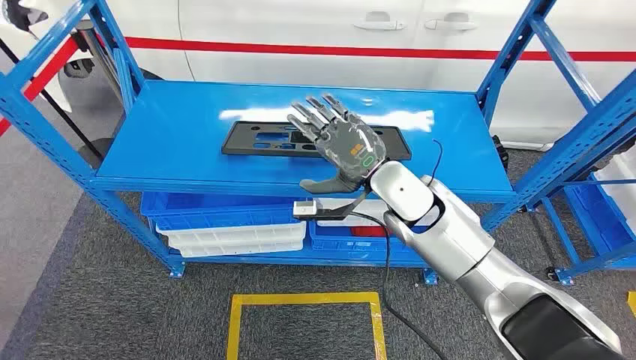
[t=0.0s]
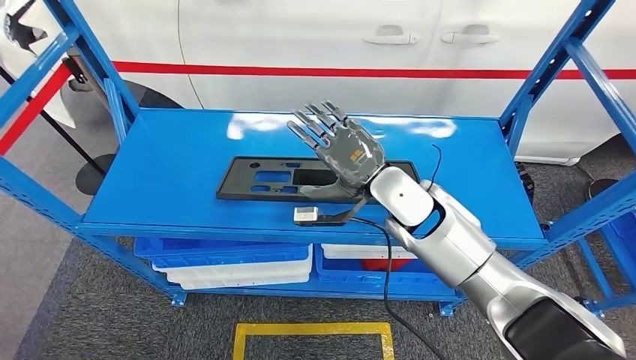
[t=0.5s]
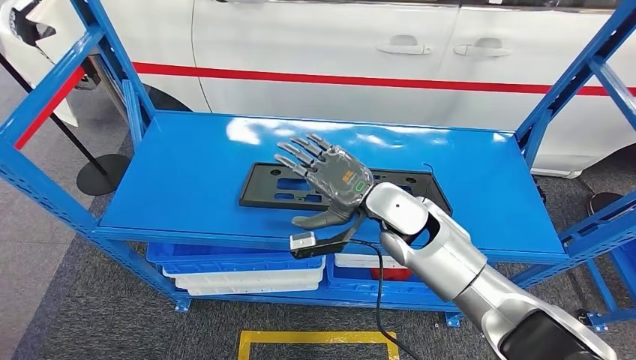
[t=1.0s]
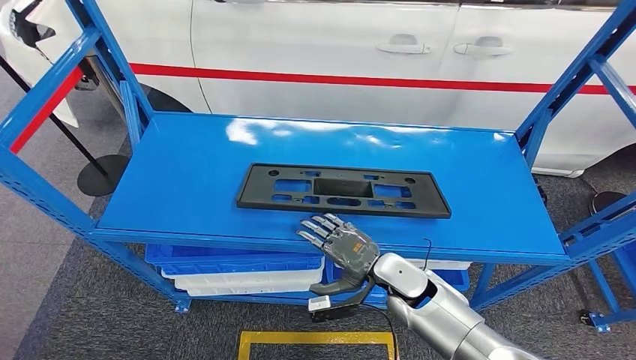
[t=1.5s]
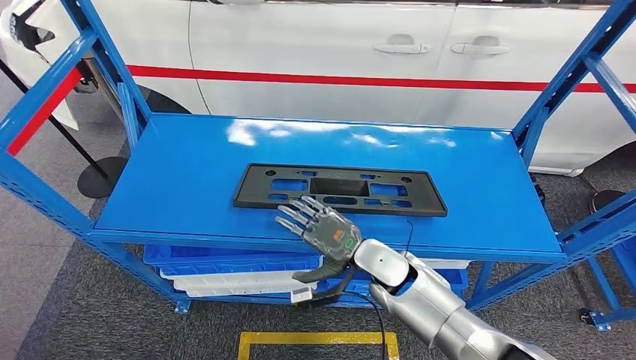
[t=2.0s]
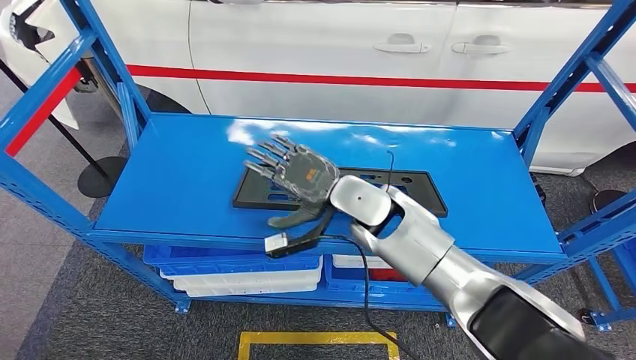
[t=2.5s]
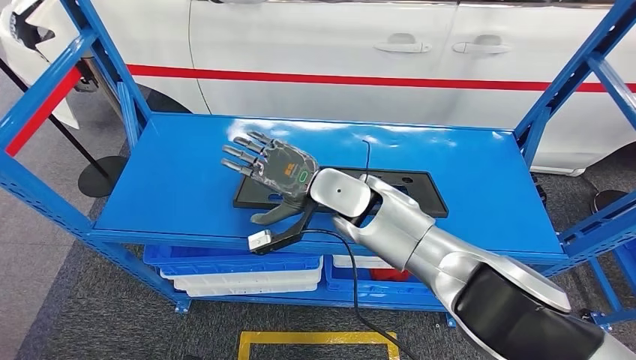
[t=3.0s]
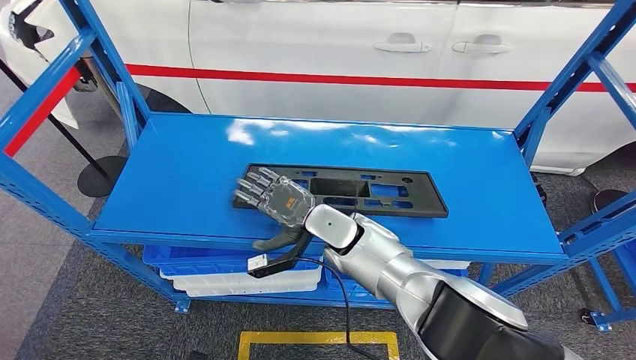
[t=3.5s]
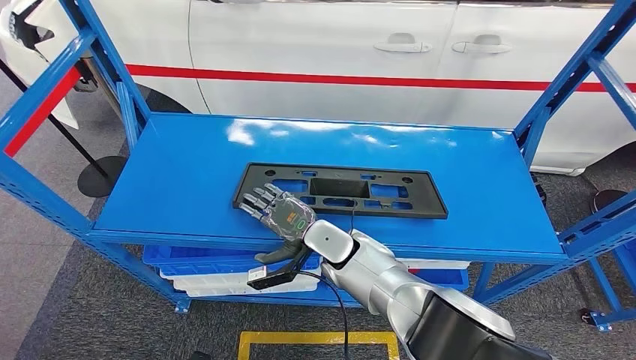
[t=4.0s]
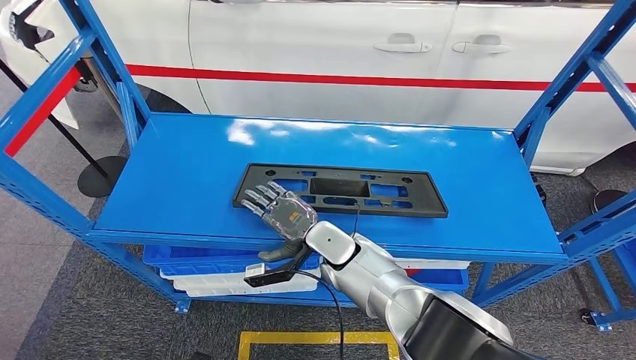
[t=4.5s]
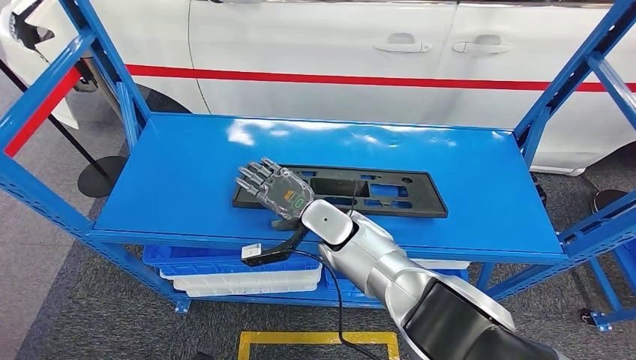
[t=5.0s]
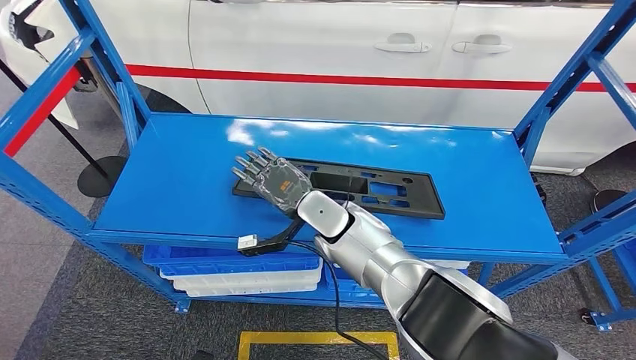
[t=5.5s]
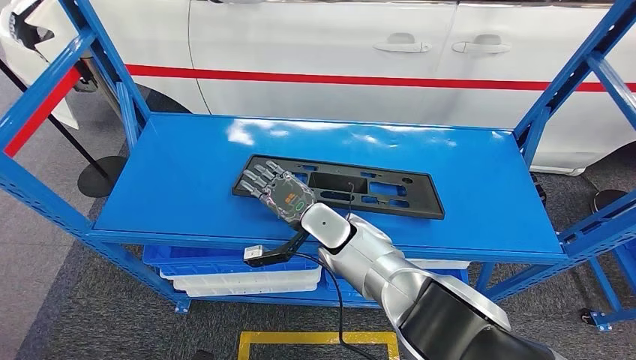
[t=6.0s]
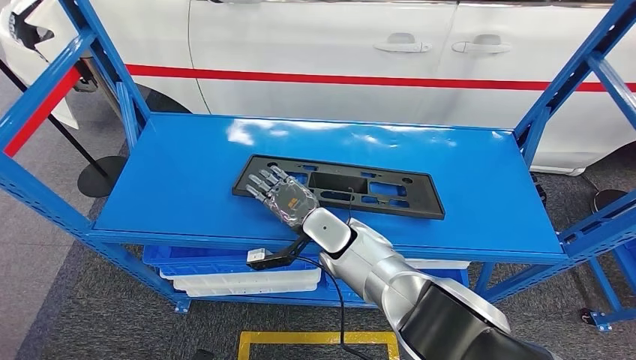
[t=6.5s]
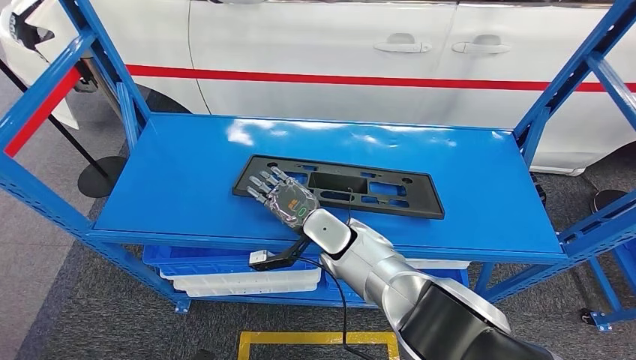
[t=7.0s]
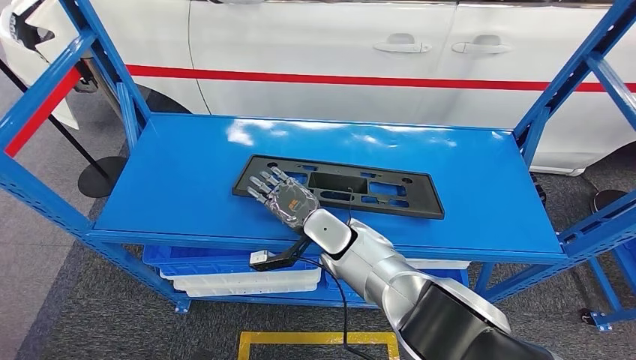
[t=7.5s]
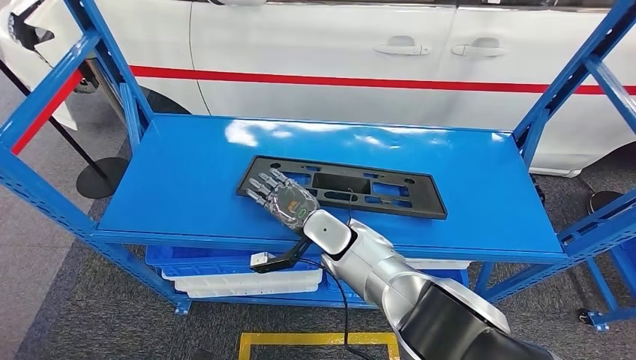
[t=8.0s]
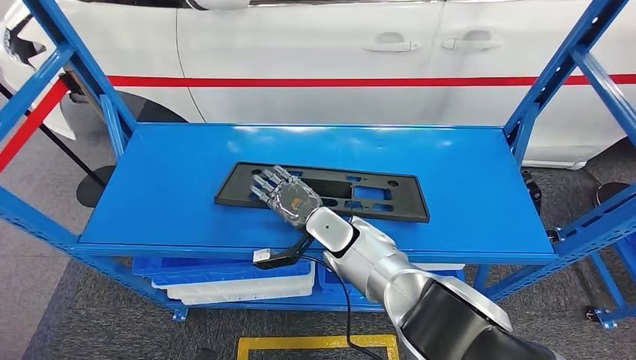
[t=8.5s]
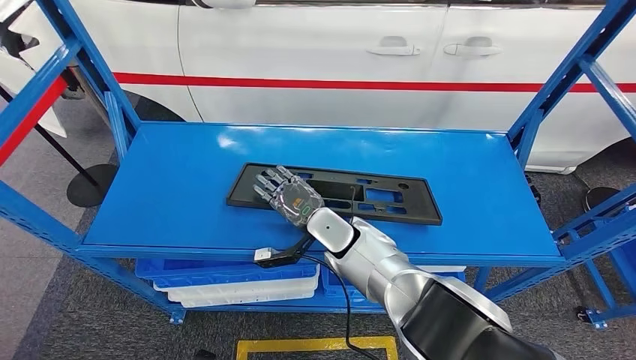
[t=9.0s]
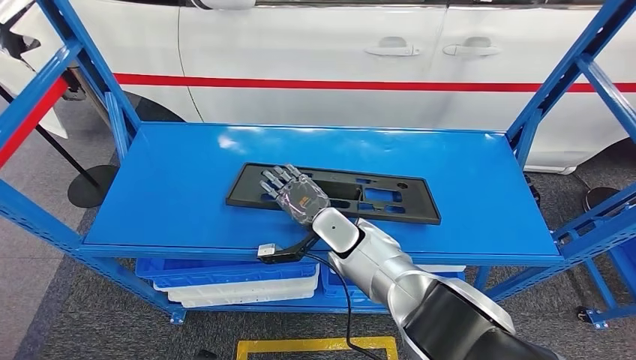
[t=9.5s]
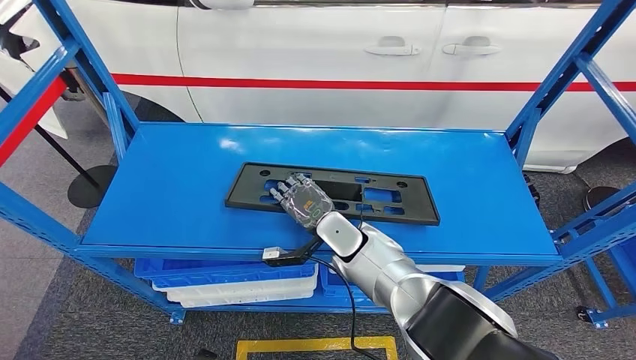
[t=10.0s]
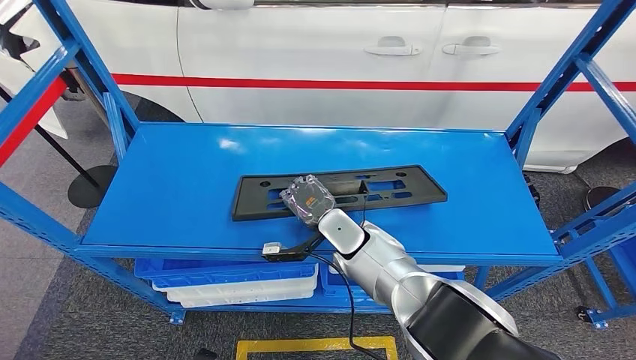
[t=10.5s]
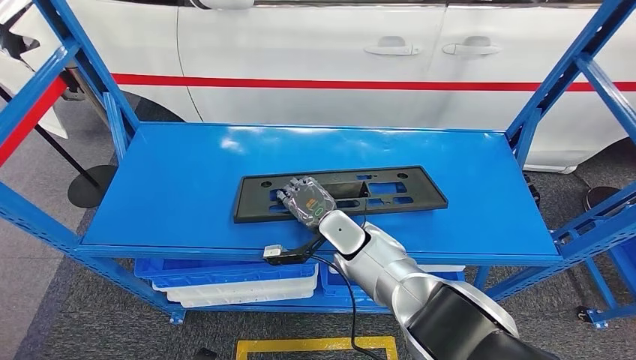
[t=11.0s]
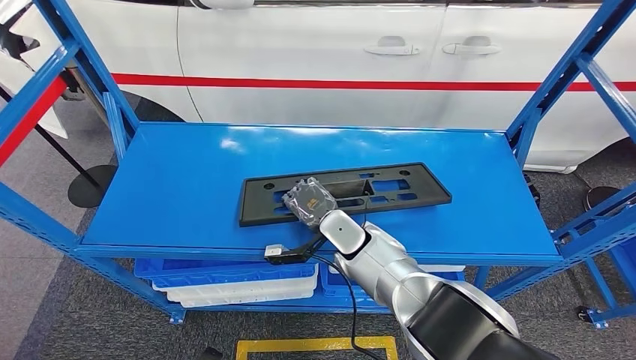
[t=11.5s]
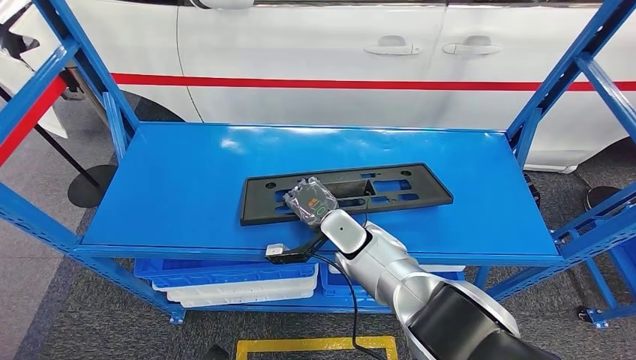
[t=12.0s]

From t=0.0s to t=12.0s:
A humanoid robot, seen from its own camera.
From t=2.0s to t=4.0s: The right hand heads to the left, covering approximately 10 cm, and reaches some 15 cm upward, then returns.
From t=6.0s to t=8.0s: There are only small adjustments of the hands.
From t=10.0s to t=12.0s: The hands stay close to where they were, moving slightly.

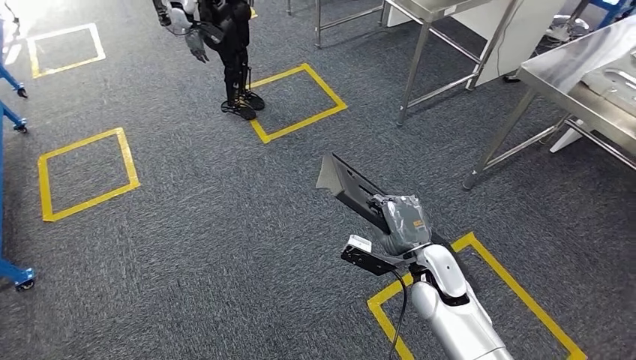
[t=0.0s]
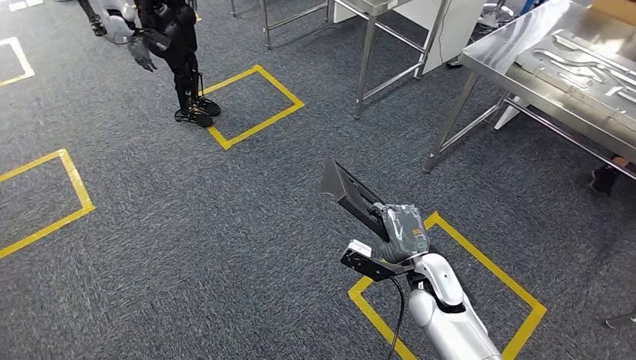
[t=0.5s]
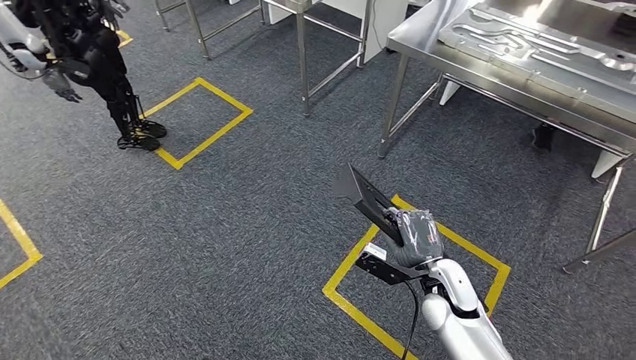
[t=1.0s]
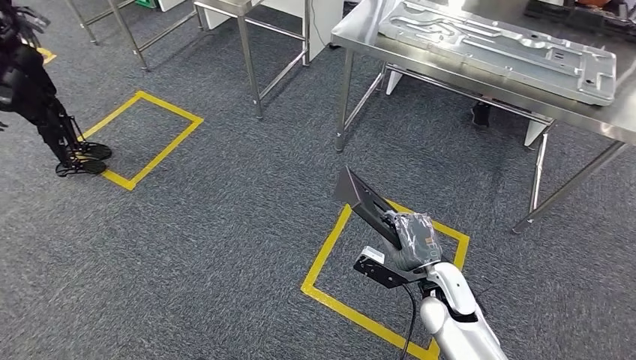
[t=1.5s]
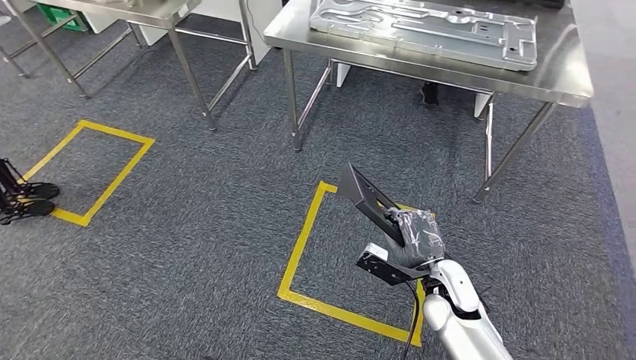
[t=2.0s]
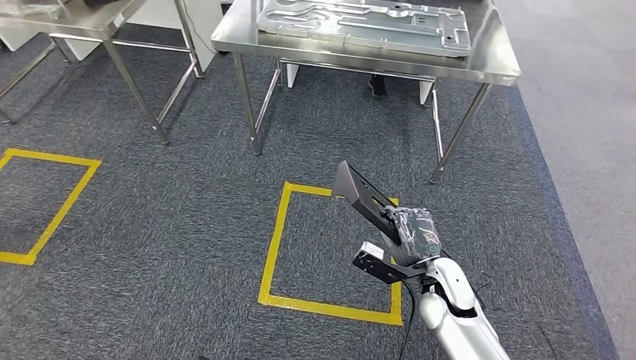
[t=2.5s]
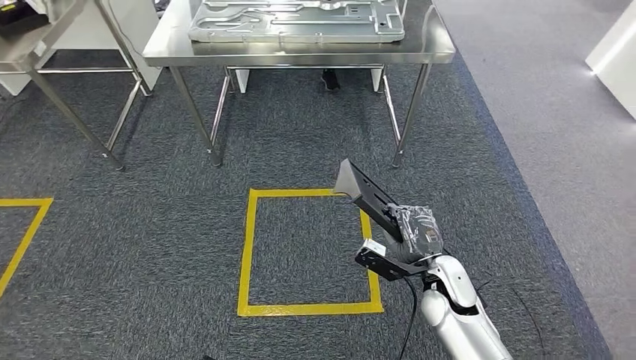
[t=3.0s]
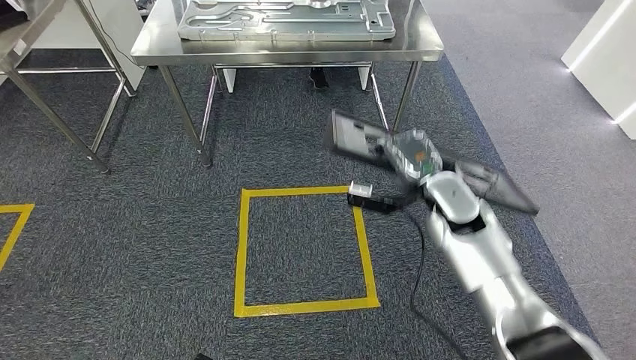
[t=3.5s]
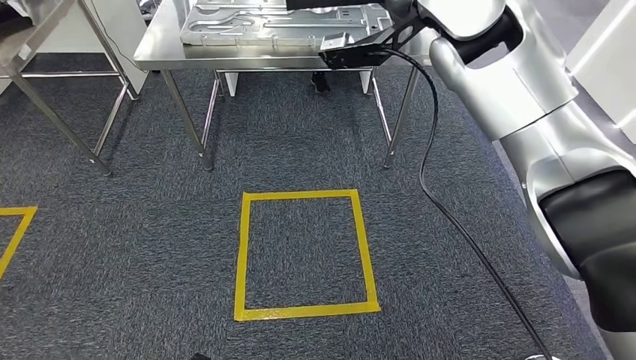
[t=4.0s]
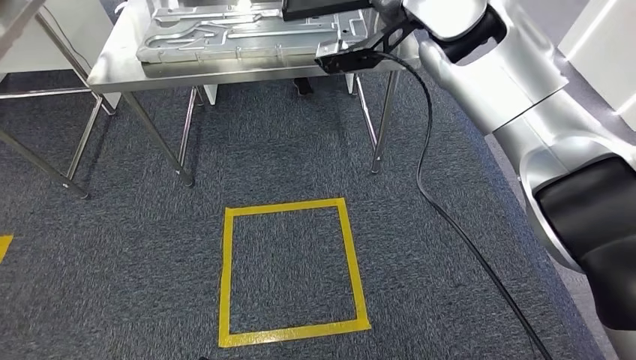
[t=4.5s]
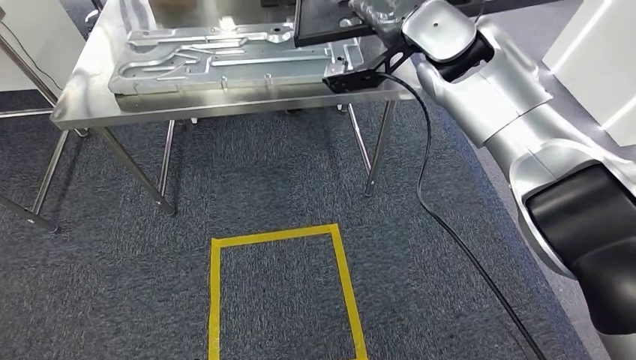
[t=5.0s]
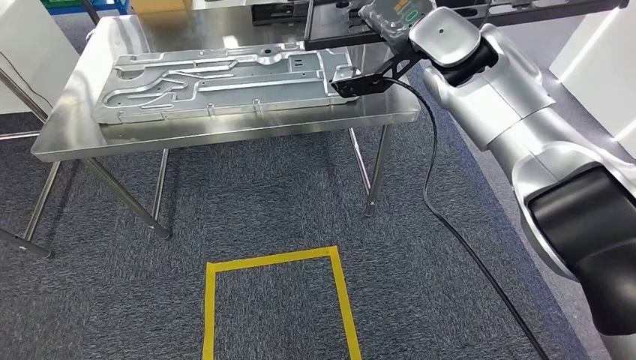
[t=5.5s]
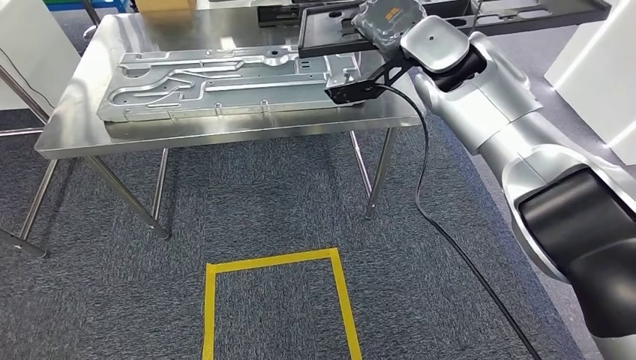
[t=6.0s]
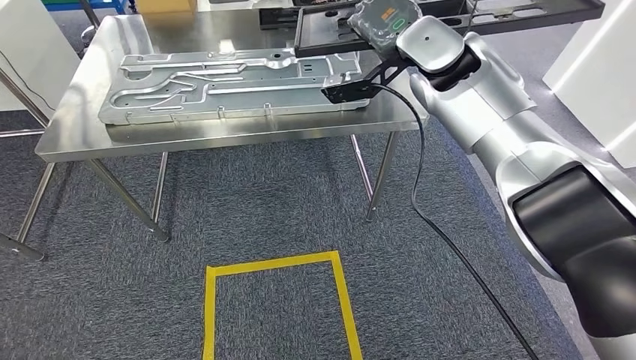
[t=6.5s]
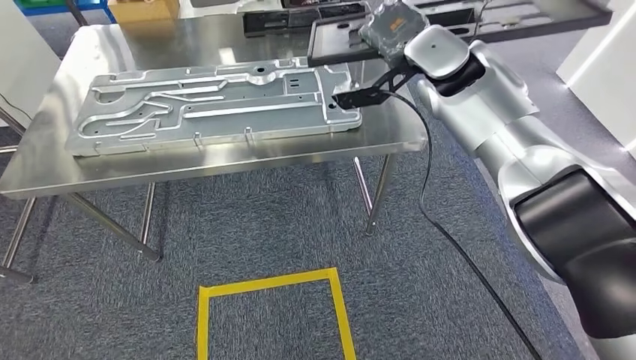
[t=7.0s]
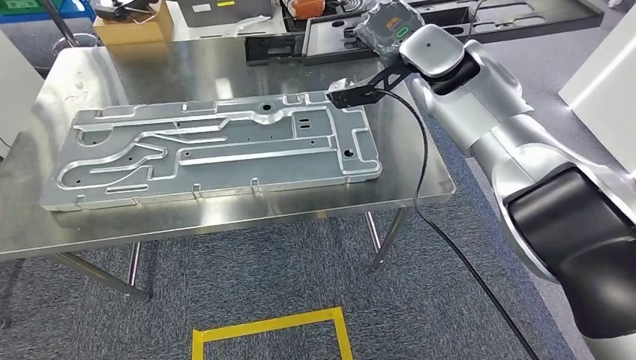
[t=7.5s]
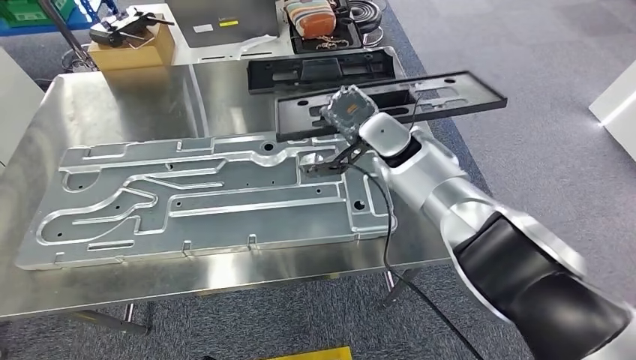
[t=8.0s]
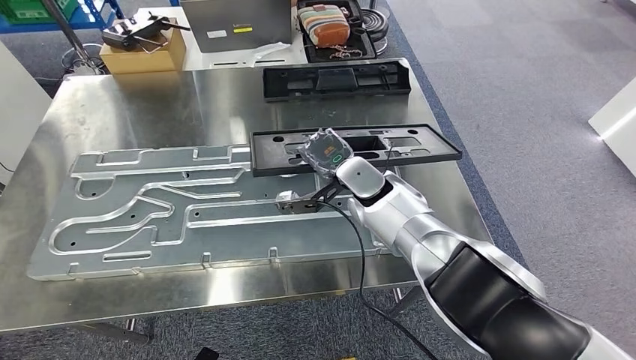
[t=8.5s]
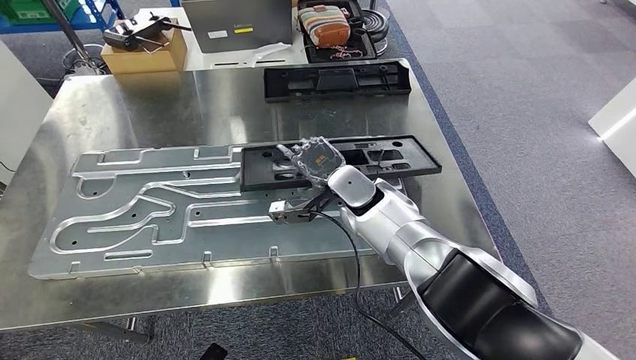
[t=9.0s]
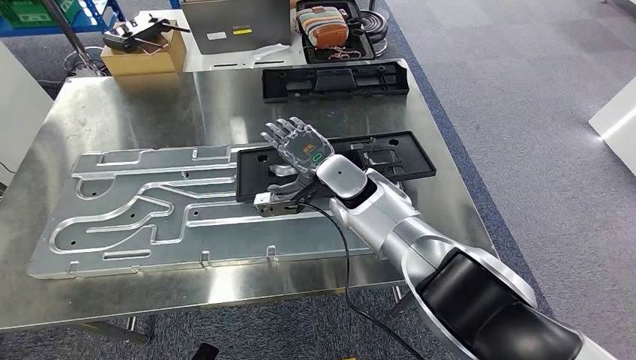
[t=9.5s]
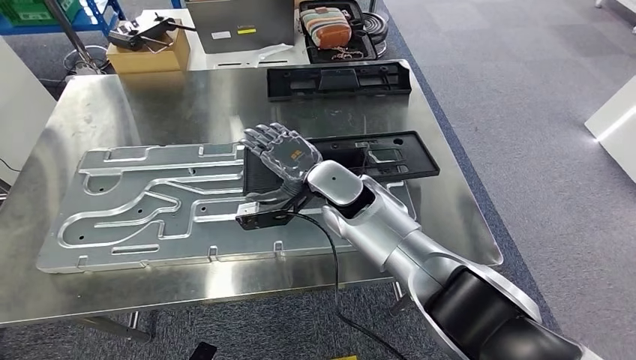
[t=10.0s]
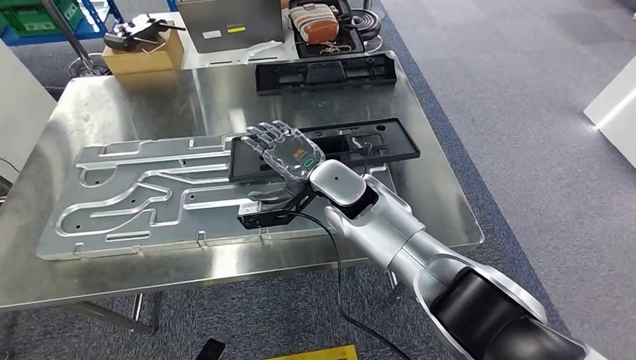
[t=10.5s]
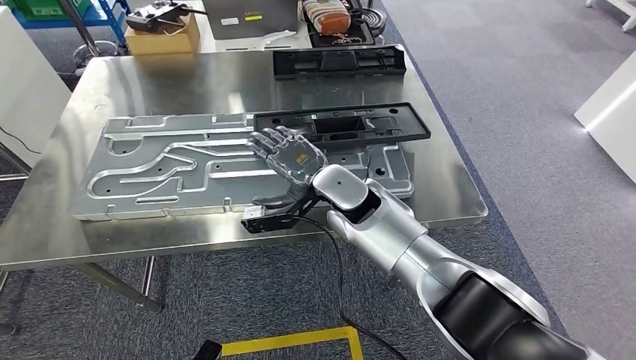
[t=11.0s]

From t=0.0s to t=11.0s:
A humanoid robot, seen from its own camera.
Step, from t=0.0s to t=8.0s: Move the large material to the workbench.
